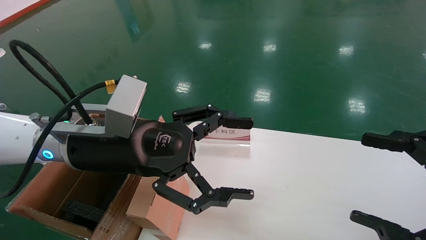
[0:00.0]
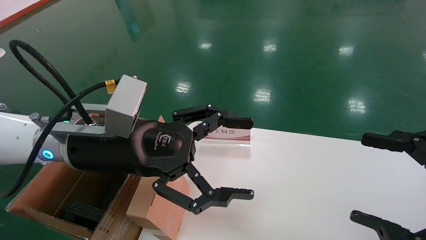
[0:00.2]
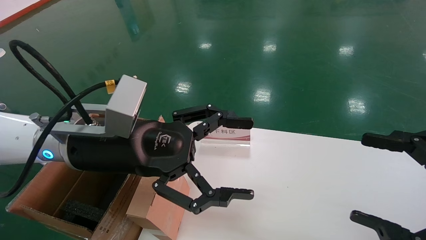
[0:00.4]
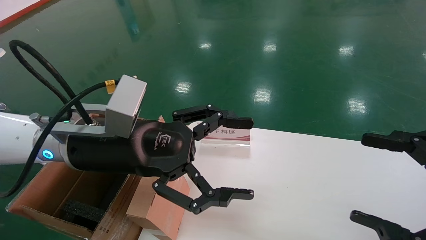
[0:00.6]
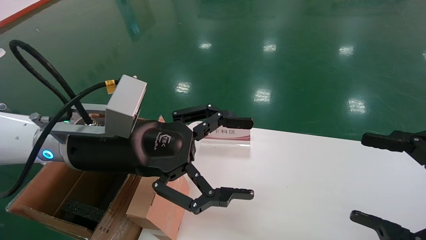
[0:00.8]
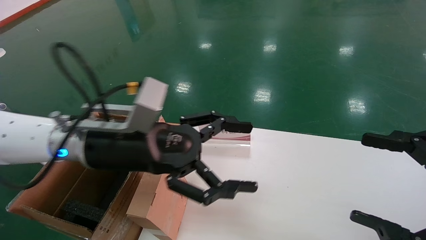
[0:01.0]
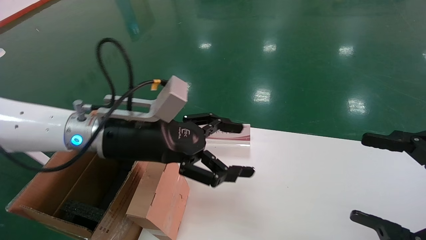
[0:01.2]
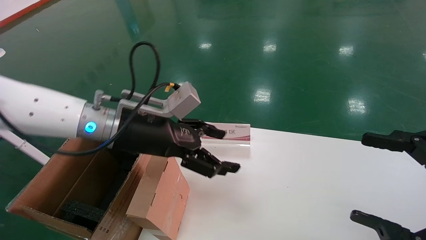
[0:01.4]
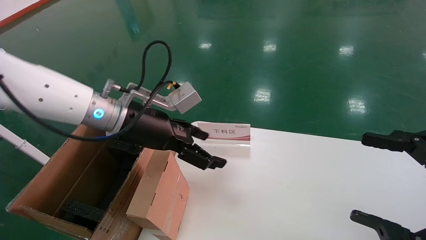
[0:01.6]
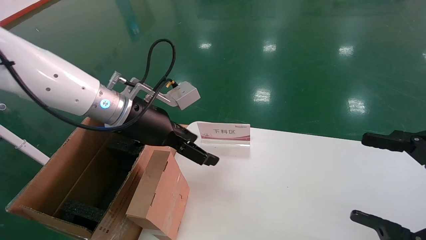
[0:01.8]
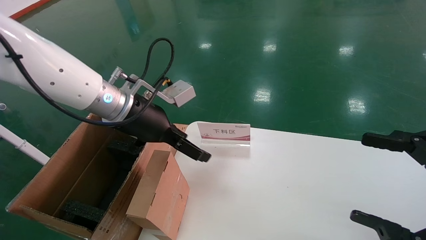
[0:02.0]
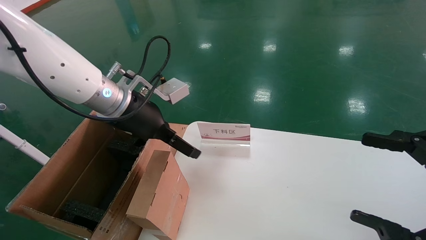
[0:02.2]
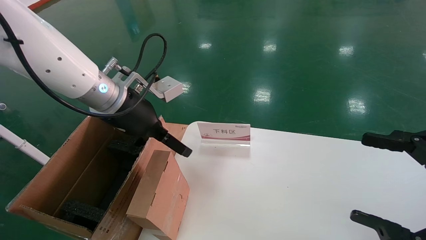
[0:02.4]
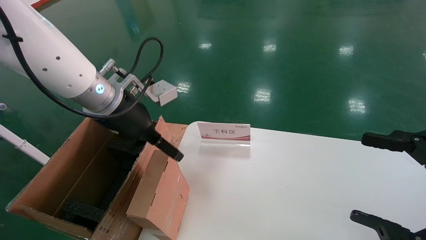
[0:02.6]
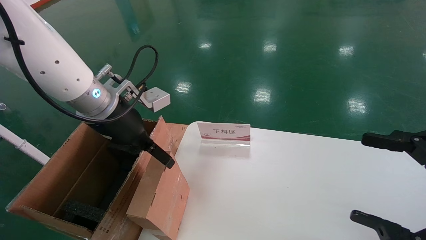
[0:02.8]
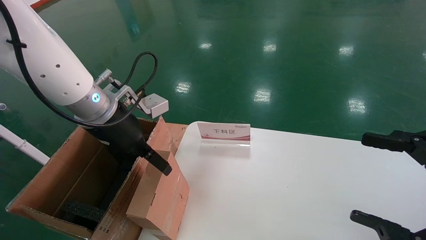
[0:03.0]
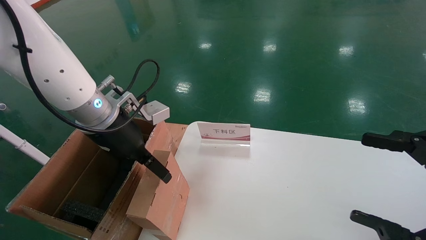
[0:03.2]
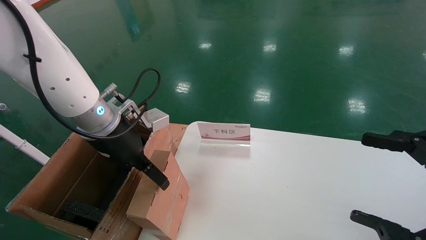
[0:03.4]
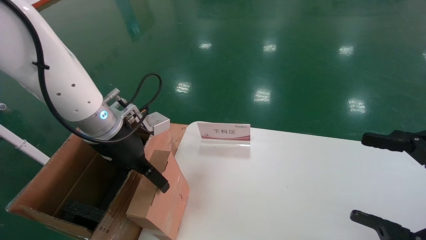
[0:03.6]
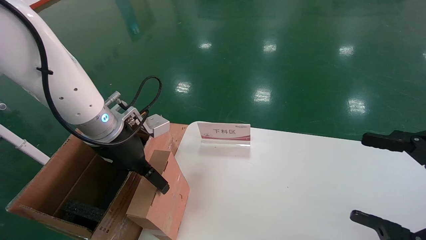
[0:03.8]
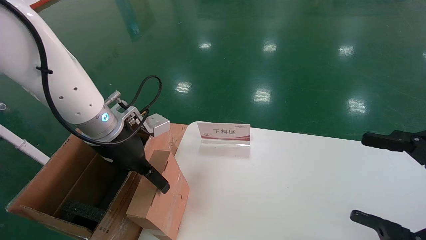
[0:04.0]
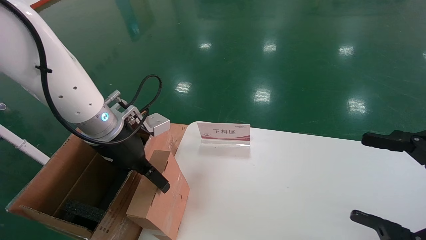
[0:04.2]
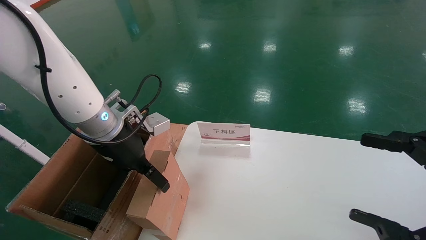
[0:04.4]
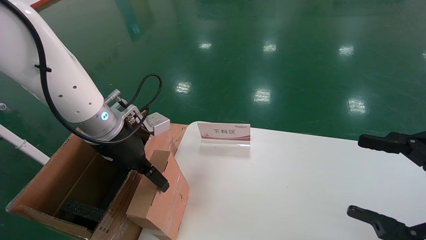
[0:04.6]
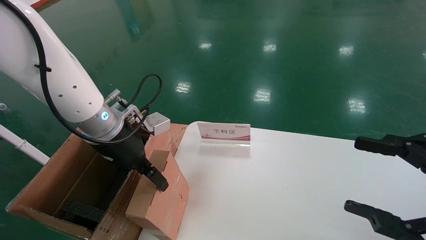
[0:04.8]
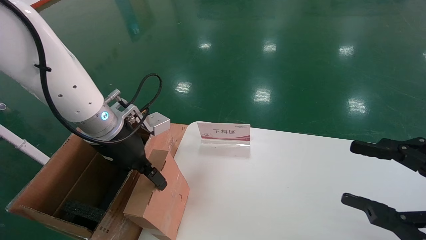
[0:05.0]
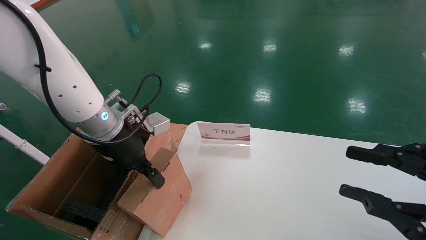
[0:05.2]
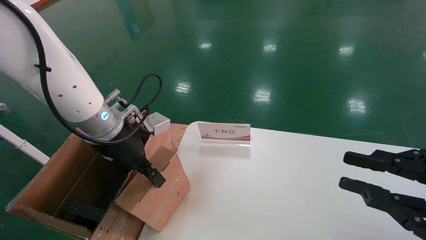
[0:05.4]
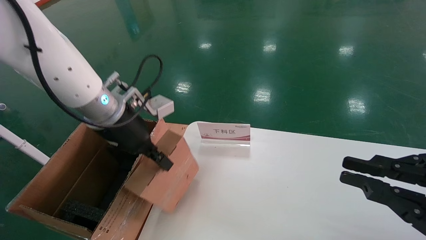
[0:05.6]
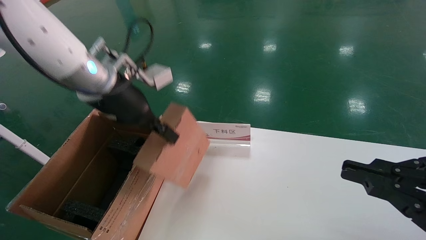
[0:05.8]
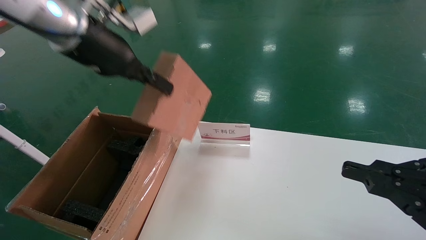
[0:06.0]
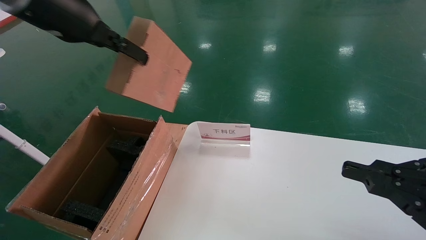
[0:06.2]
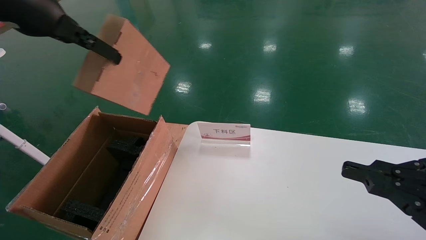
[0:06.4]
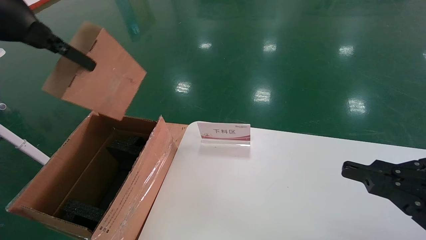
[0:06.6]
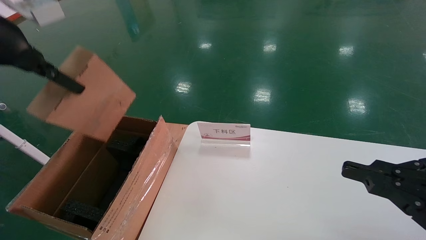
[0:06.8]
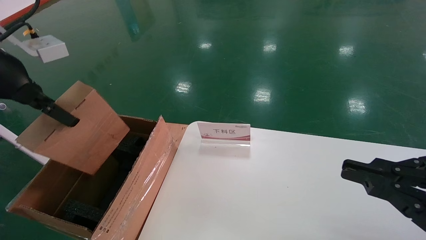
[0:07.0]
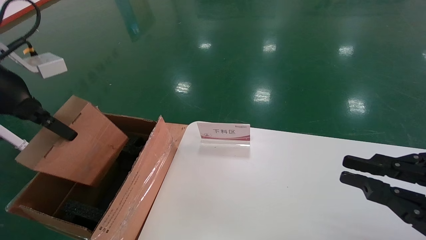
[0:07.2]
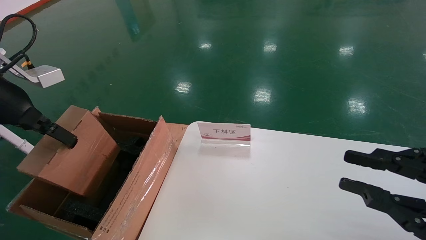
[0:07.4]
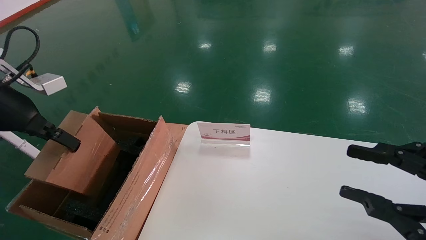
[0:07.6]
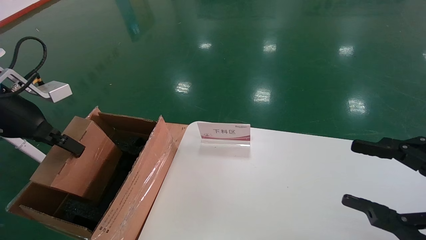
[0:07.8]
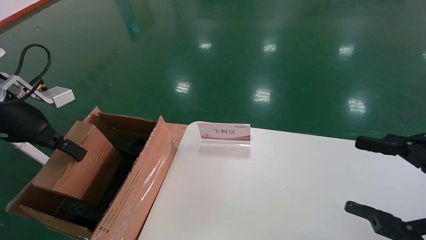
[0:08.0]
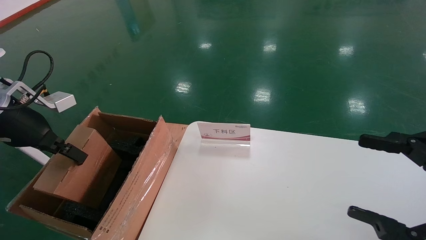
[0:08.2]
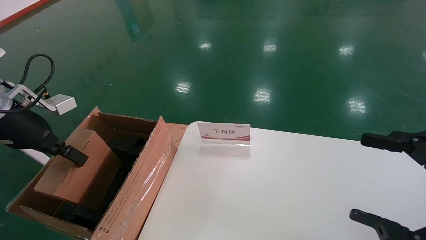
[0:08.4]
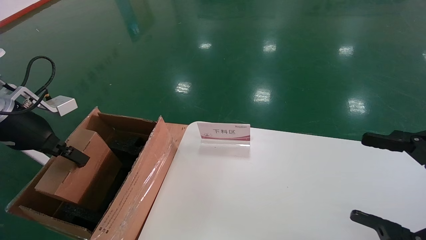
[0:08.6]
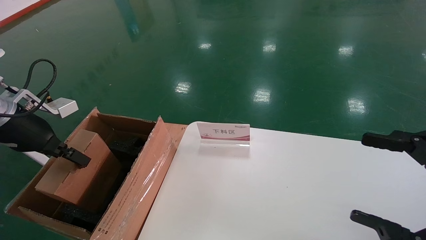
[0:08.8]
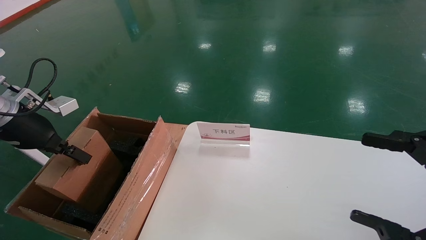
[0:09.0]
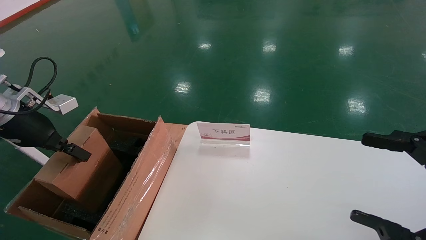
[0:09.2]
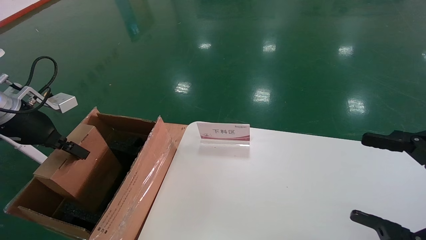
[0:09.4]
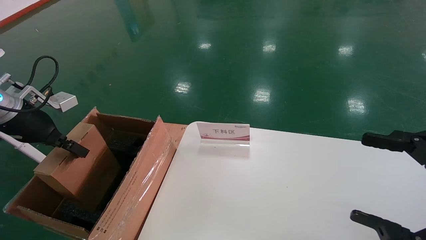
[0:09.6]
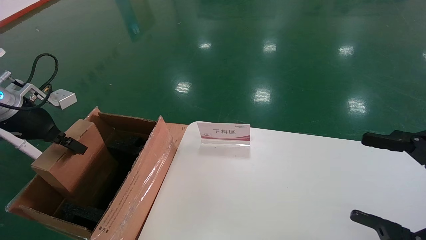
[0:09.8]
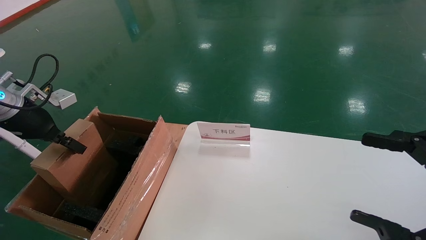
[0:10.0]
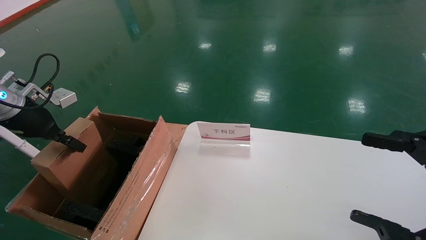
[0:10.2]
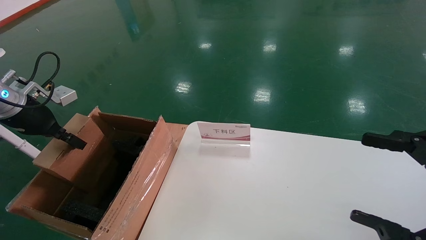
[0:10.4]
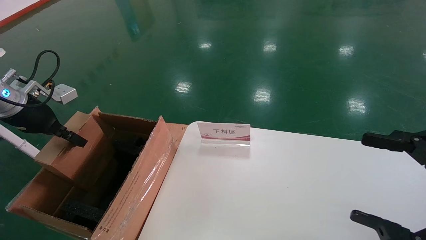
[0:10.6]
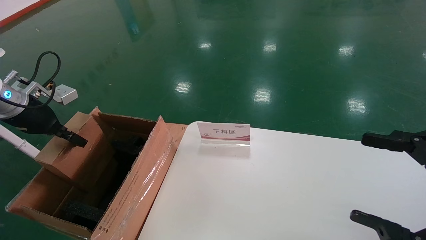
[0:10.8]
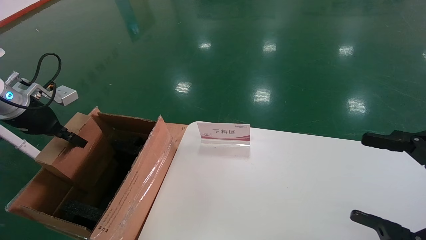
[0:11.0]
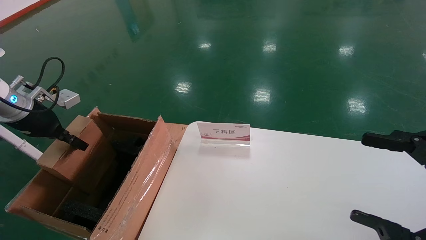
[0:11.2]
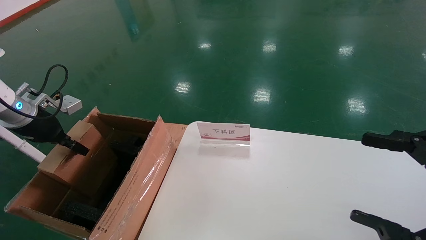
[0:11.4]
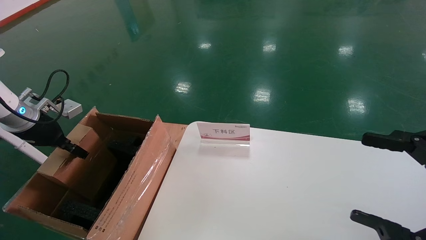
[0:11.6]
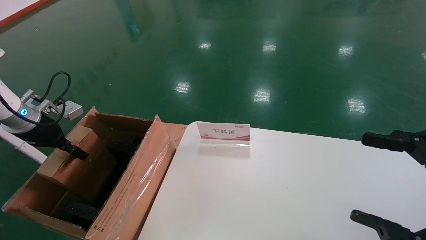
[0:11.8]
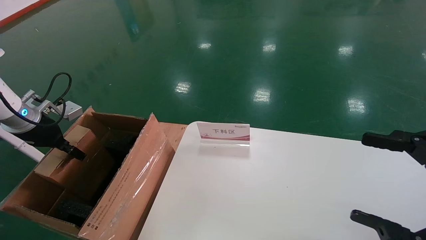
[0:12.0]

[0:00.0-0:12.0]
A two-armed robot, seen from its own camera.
Task of the whole recording: pick up the small cardboard box and load it into the large cardboard box.
Step, 0:01.2 to 0:05.6: Pick up the mouse and power cord box.
0:00.0 to 0:01.6: The left gripper goes approximately 10 cm forward.
0:03.0 to 0:04.4: The grippers stay close to where they were, moving slightly.
0:04.4 to 0:06.0: The right gripper closes, while the left gripper travels upward by approximately 15 cm, and closes up.
0:06.0 to 0:07.6: The left gripper travels to the left, downward and backward by roughly 20 cm.
0:07.6 to 0:09.0: The right gripper opens. The left gripper heads downward, covering some 5 cm.
0:09.0 to 0:10.4: The left gripper shifts by roughly 5 cm.
0:10.4 to 0:12.0: The left gripper moves approximately 5 cm.

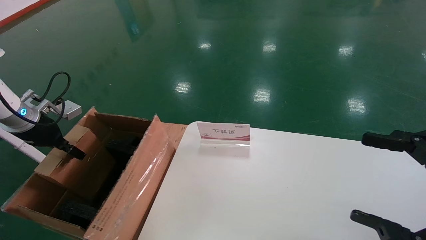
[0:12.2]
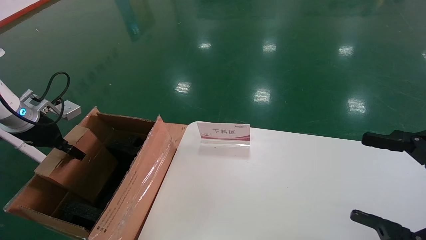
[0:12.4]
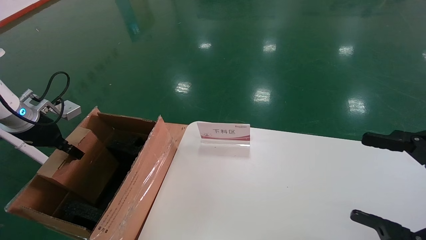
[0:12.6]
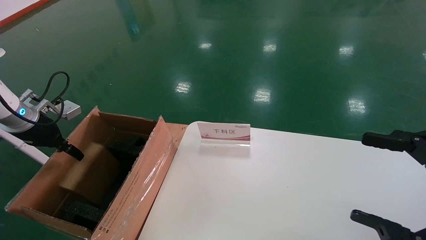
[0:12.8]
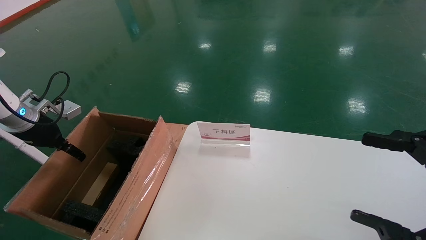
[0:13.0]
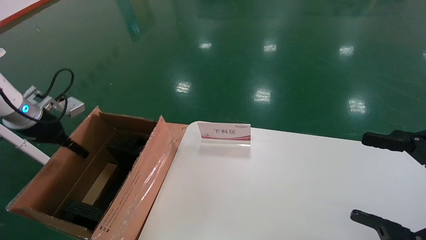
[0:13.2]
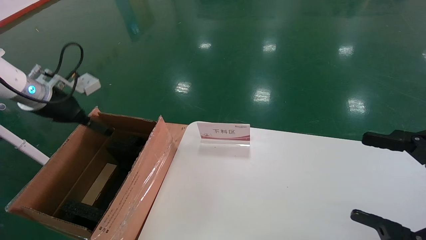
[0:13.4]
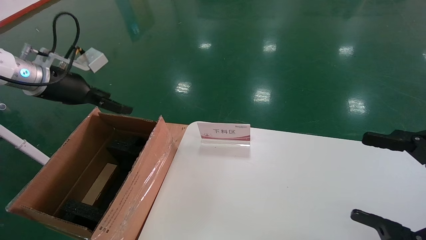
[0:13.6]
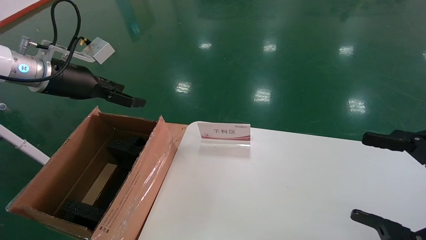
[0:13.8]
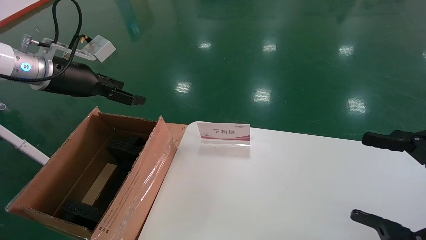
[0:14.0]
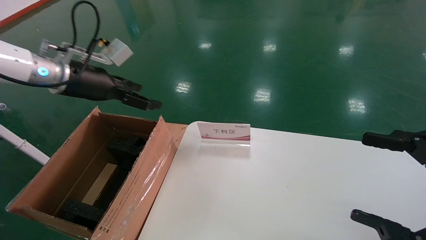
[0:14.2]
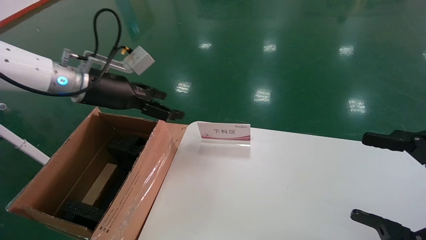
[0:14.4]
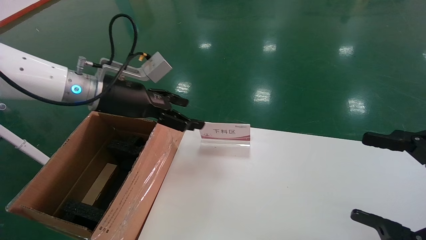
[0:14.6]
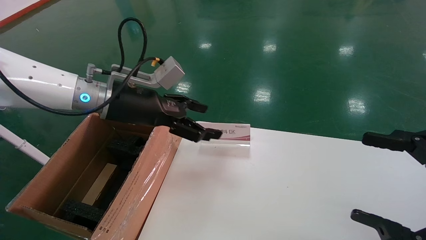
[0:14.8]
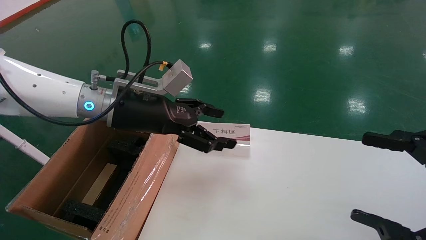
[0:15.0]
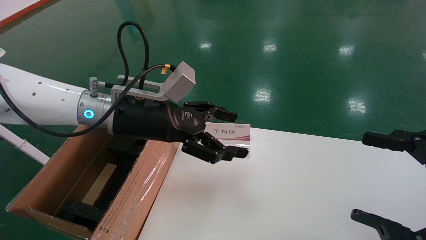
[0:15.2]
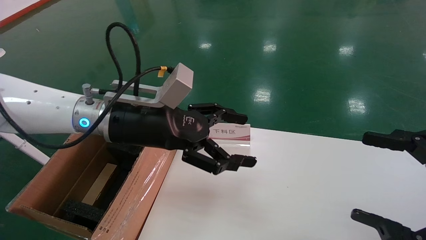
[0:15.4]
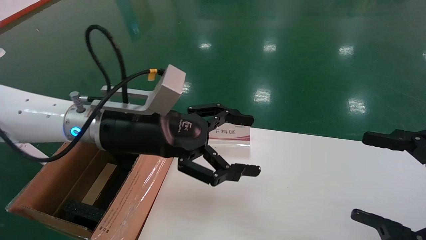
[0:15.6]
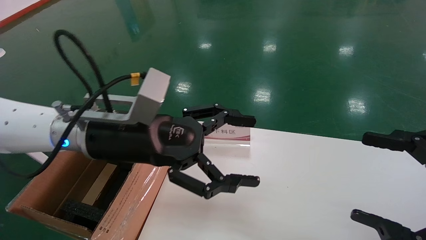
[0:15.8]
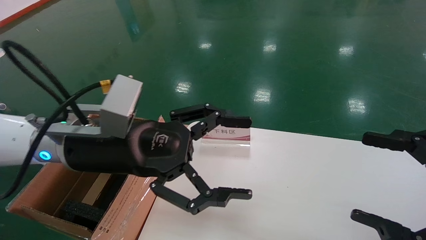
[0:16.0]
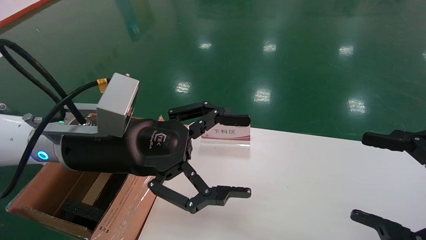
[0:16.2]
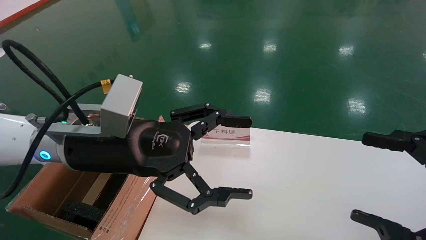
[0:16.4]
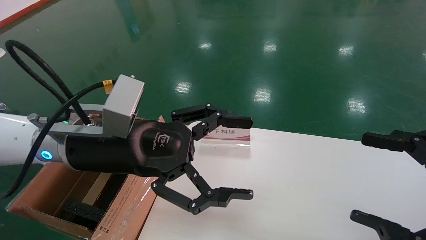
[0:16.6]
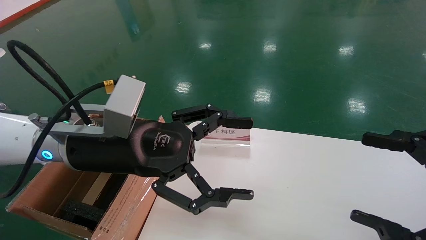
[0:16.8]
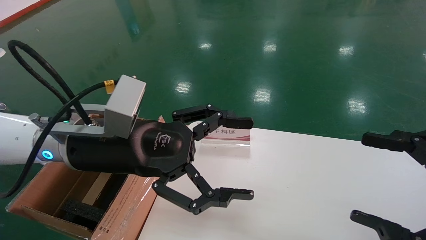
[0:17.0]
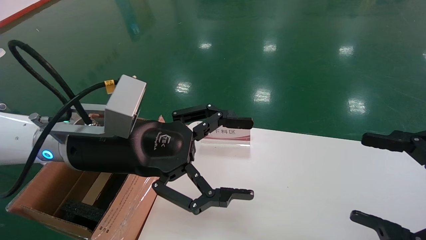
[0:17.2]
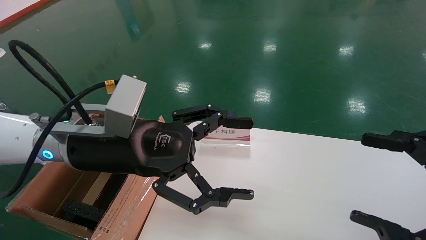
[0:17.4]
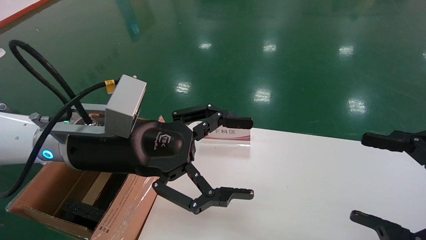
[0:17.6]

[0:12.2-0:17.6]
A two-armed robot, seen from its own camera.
Task of the whole recording: pick up the small cardboard box and load it into the large cardboard box.
0:12.2 to 0:13.6: The left gripper travels upward and to the right by about 10 cm, and opens up.
0:13.6 to 0:15.0: The left gripper heads to the right, covering roughly 20 cm.
0:15.0 to 0:16.2: The left gripper is displaced backward by some 10 cm.
0:16.2 to 0:17.6: The two grippers keep their place.
